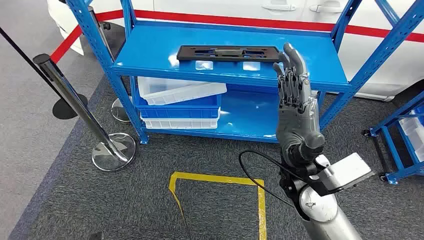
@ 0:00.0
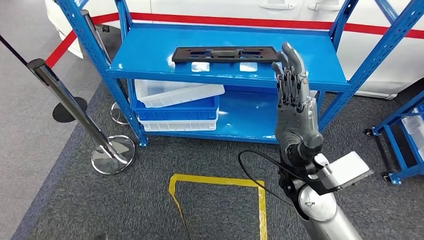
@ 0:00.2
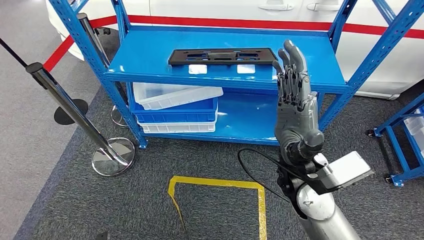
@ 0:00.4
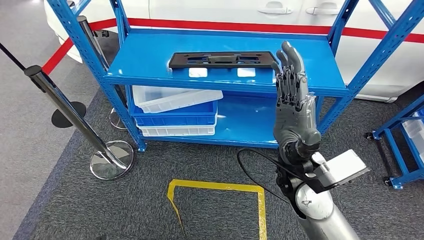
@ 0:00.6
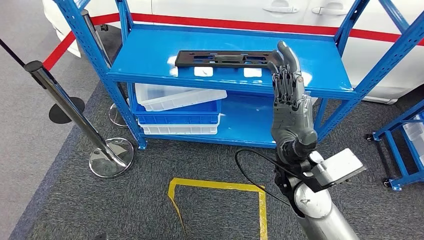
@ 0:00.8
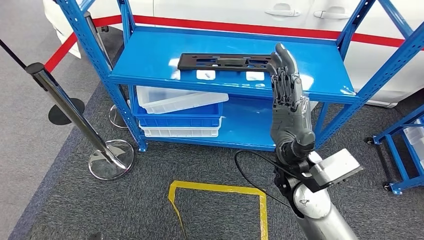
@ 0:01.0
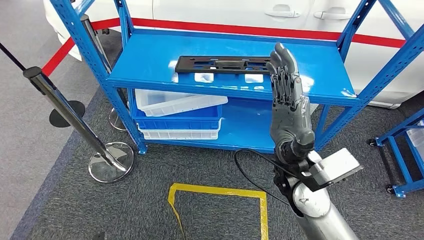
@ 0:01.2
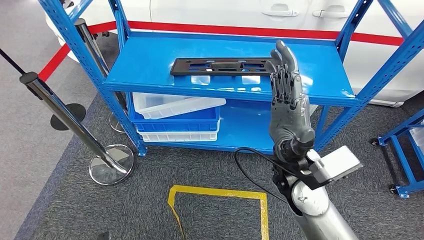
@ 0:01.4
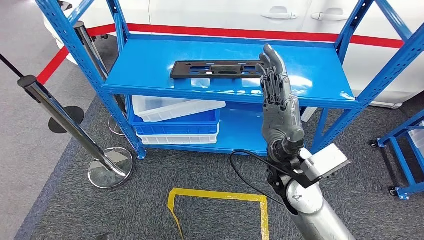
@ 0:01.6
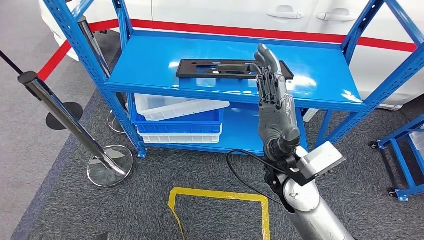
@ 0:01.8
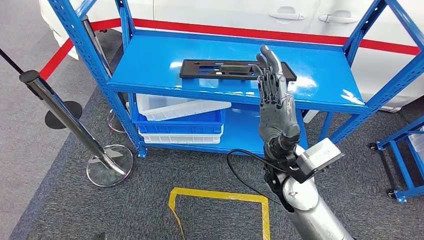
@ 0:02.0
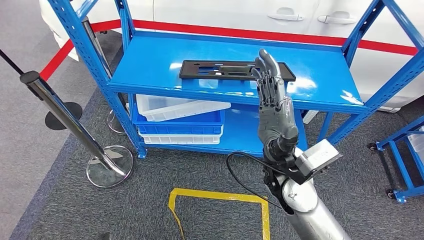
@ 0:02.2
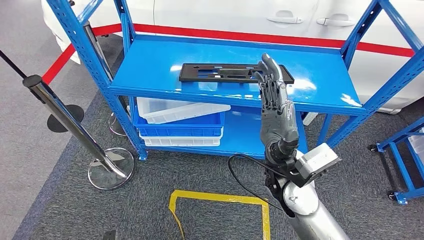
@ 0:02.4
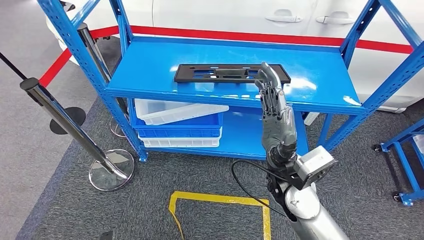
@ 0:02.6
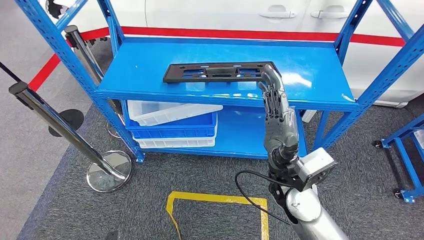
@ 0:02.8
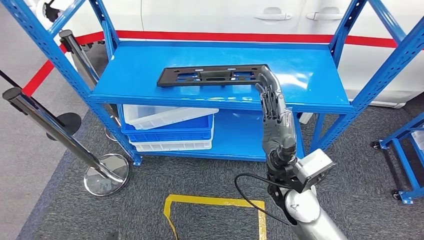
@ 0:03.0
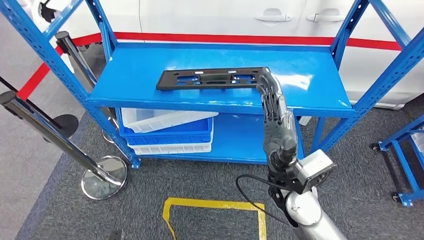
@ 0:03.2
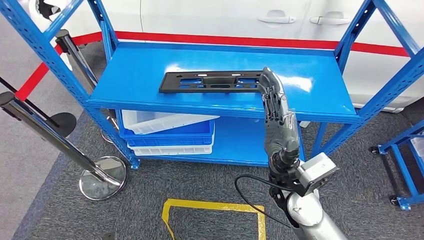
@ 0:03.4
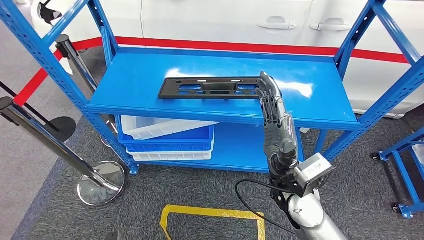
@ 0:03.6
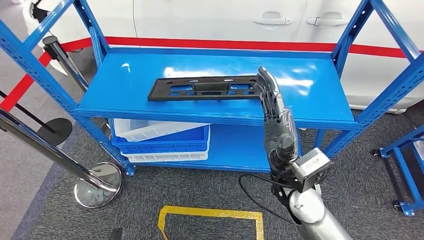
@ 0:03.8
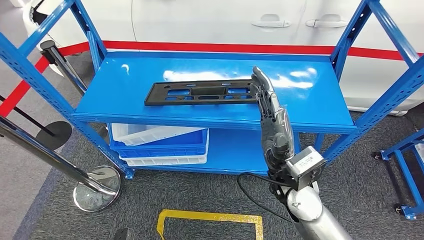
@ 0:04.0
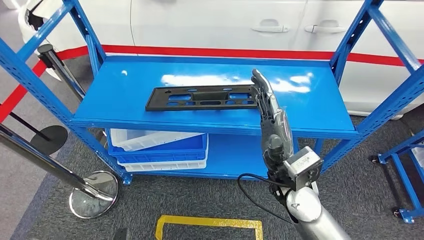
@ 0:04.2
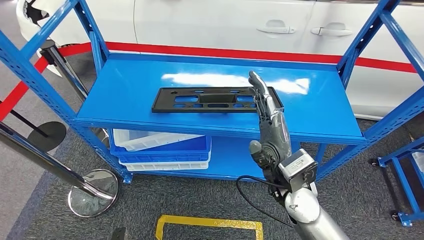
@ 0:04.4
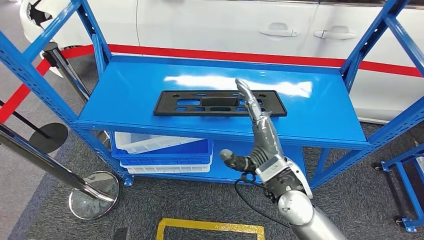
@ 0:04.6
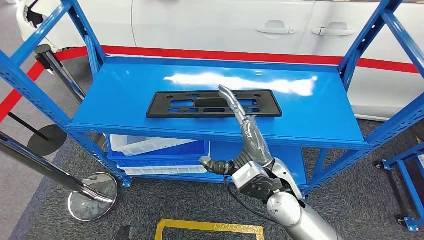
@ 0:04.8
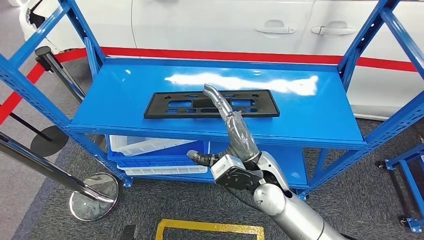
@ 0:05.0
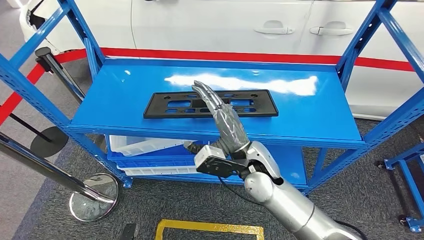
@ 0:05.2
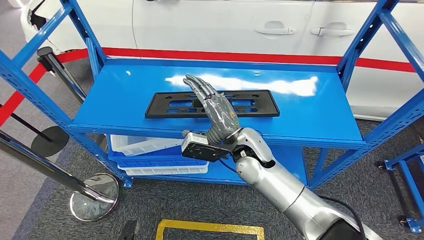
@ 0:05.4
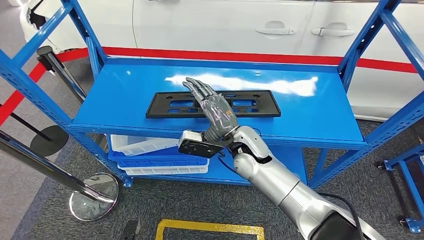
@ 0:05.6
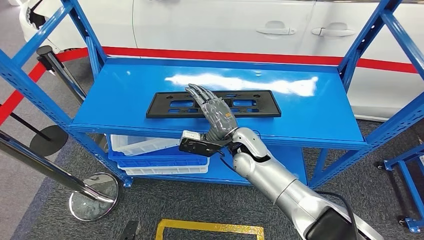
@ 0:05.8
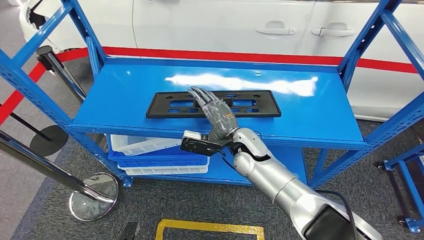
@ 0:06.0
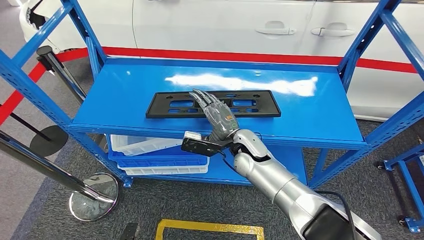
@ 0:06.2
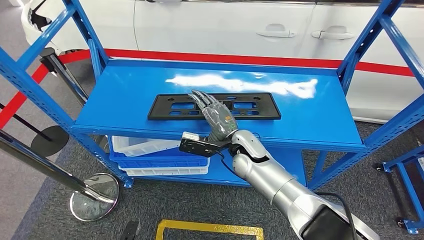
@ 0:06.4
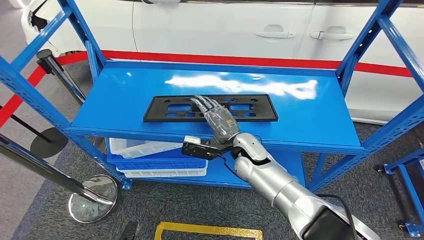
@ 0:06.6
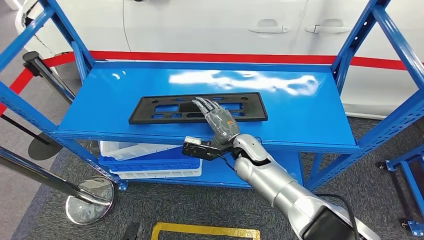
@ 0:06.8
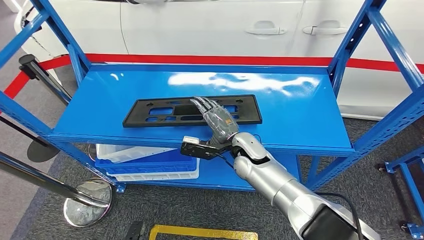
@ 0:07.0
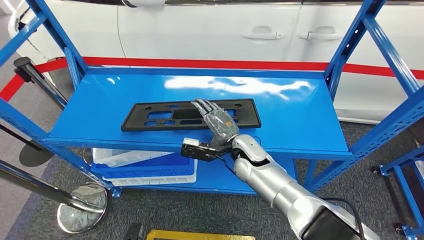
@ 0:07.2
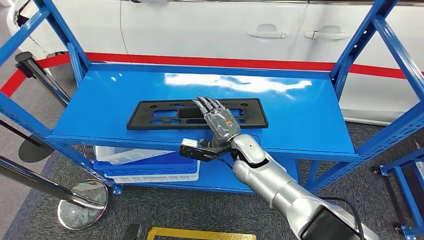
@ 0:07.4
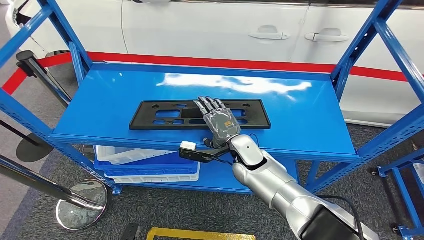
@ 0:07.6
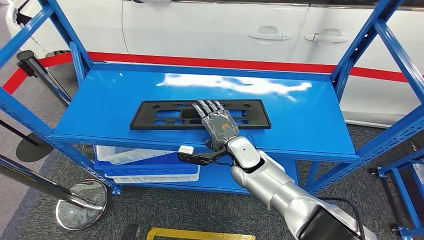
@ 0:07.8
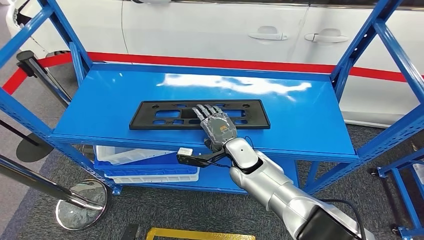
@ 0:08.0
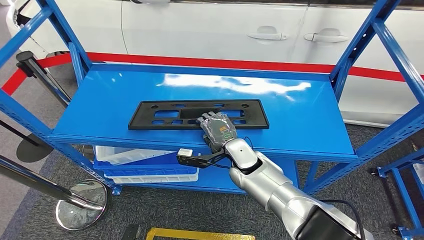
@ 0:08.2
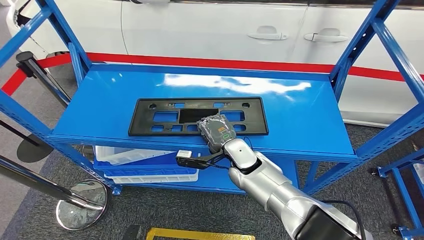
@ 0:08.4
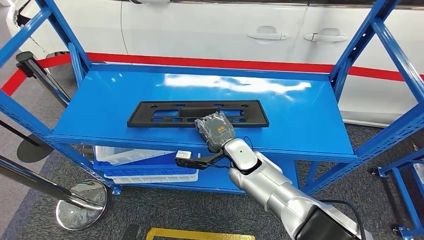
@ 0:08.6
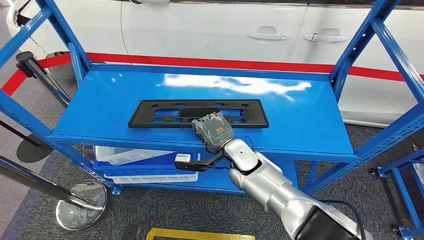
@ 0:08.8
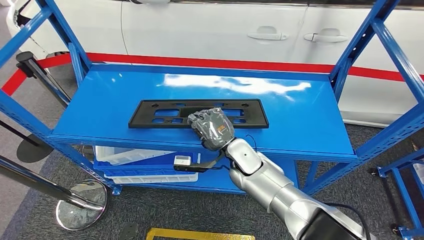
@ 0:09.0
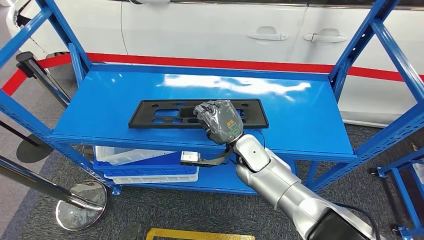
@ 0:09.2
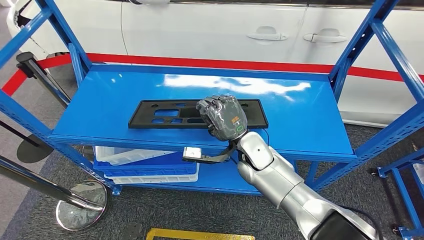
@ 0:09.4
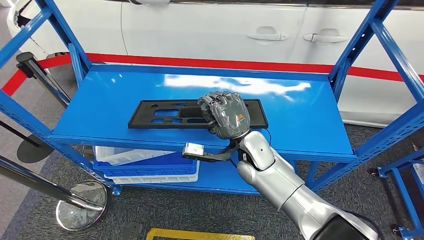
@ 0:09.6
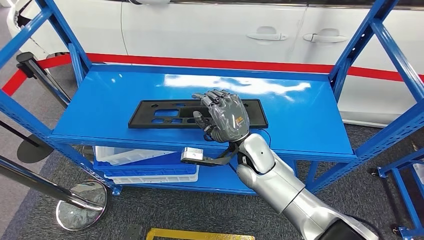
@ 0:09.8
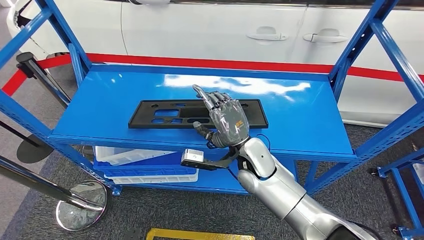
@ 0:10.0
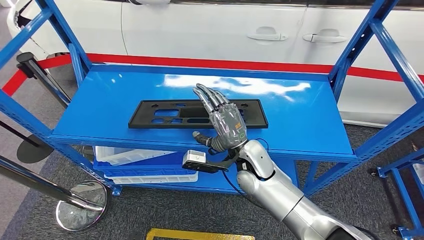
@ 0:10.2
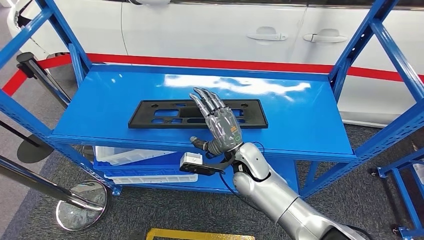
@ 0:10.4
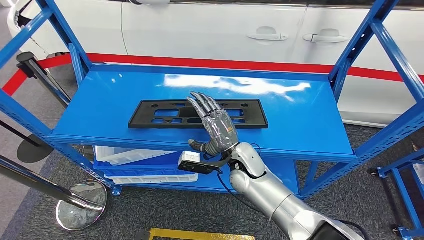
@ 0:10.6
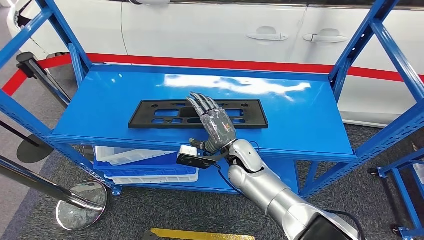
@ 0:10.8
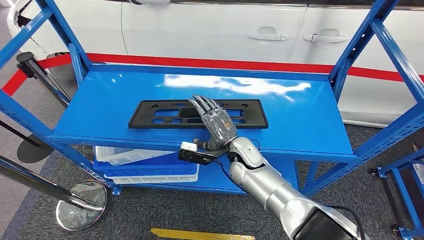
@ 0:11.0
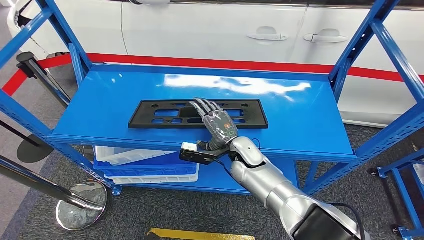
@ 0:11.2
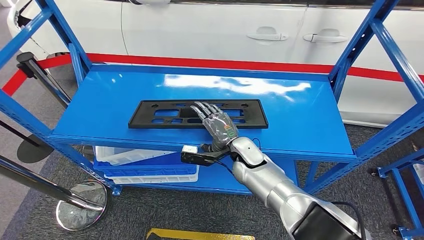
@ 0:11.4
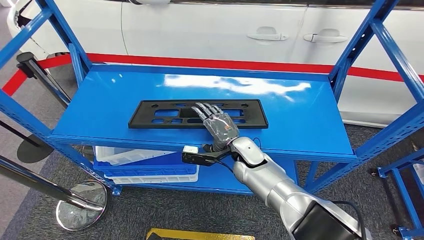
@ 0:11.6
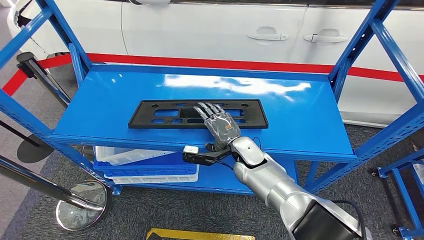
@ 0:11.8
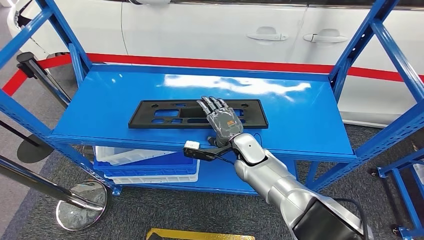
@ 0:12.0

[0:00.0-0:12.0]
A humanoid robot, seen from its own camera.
0:07.6 to 0:09.0: The hands stay close to where they were, moving slightly.
0:10.4 to 0:12.0: The right hand moves roughly 5 cm.

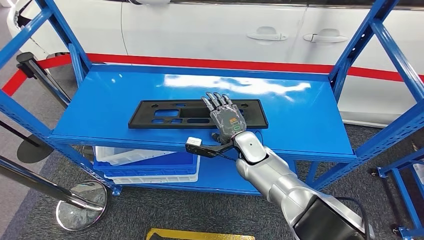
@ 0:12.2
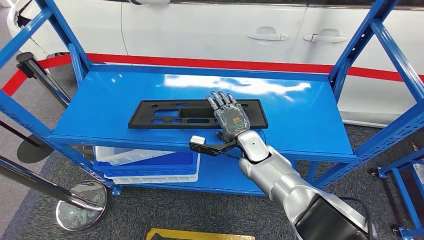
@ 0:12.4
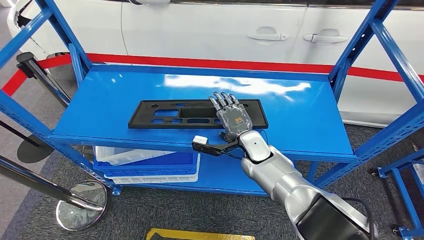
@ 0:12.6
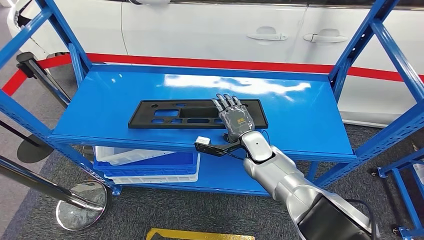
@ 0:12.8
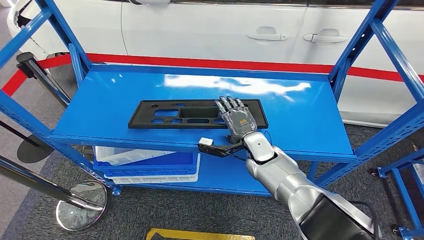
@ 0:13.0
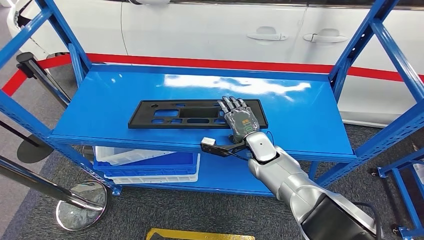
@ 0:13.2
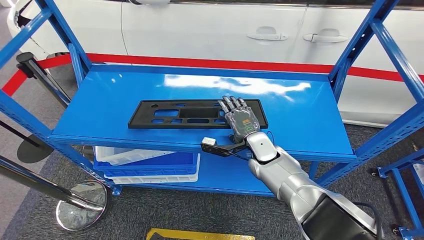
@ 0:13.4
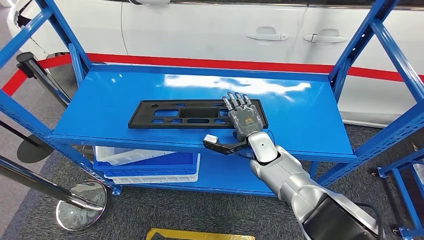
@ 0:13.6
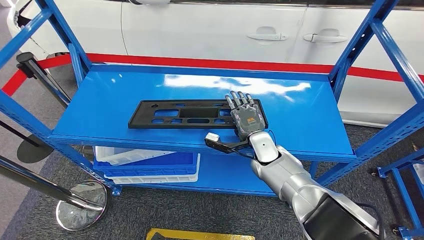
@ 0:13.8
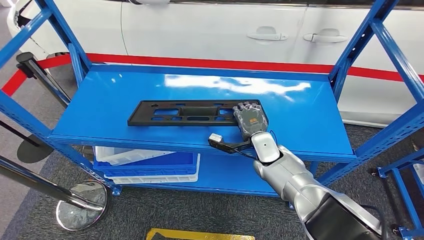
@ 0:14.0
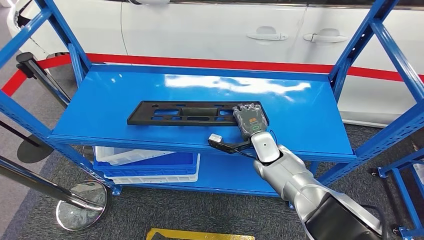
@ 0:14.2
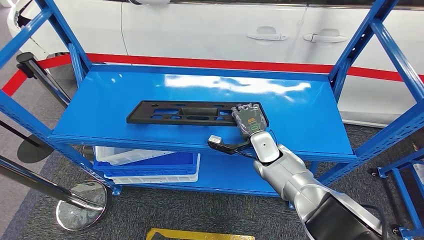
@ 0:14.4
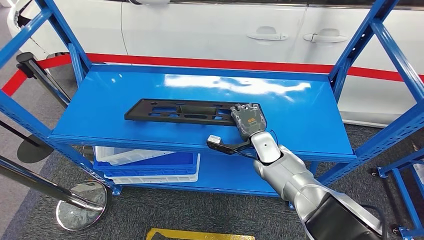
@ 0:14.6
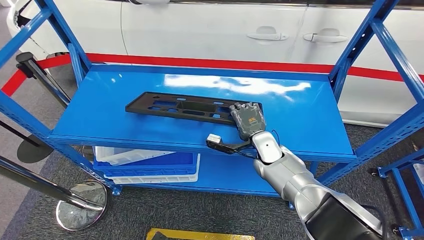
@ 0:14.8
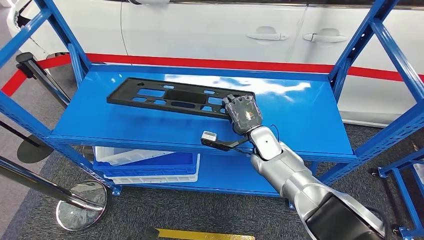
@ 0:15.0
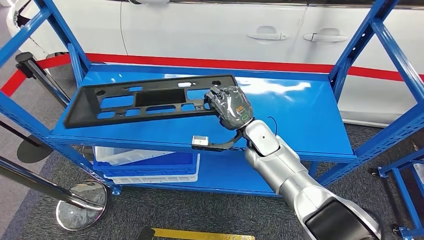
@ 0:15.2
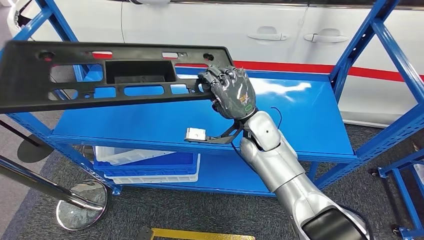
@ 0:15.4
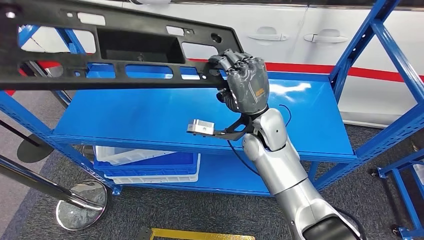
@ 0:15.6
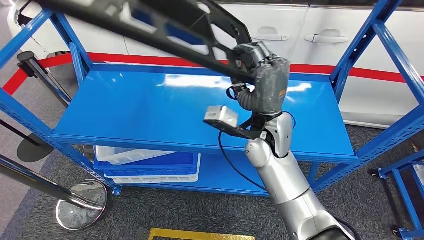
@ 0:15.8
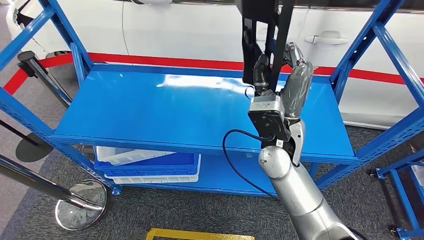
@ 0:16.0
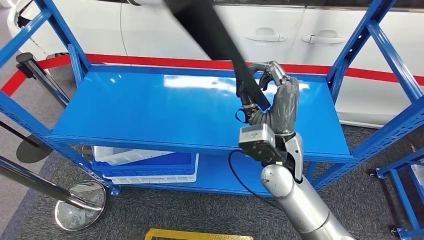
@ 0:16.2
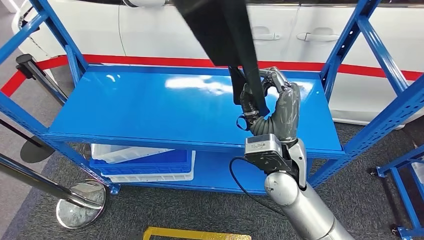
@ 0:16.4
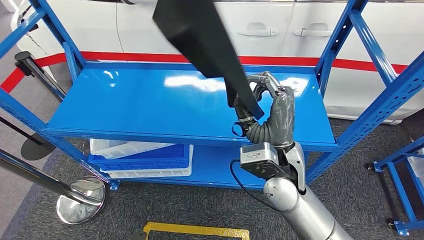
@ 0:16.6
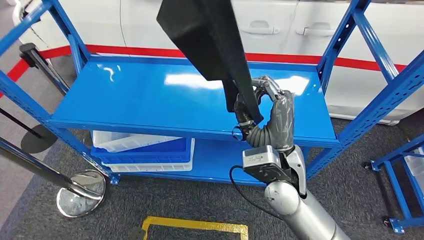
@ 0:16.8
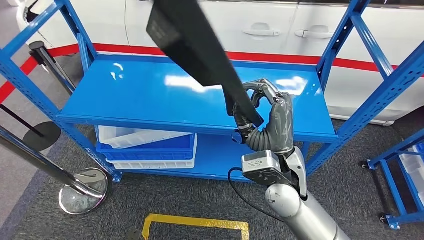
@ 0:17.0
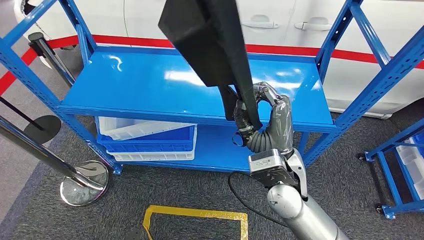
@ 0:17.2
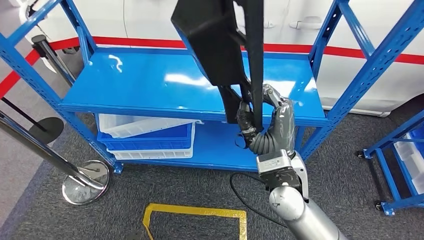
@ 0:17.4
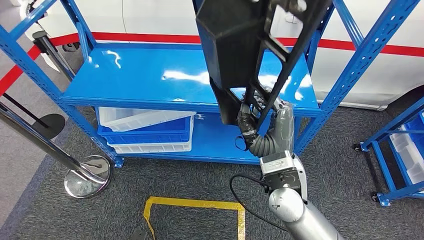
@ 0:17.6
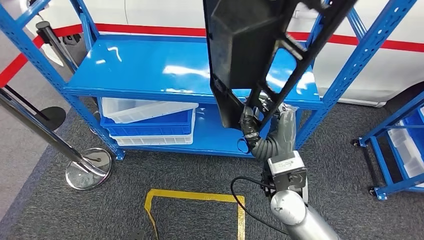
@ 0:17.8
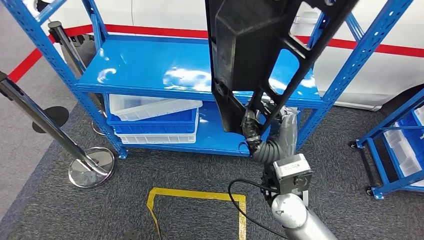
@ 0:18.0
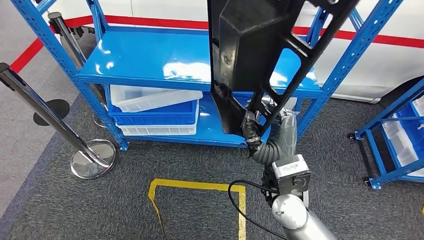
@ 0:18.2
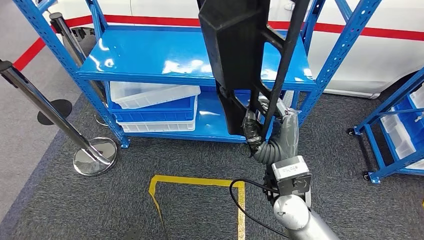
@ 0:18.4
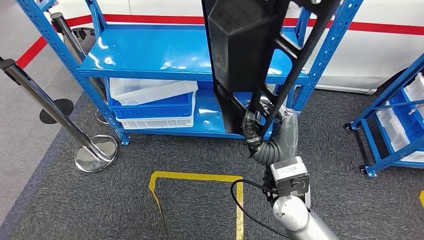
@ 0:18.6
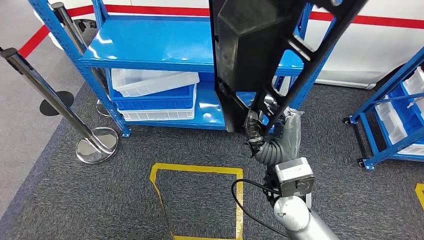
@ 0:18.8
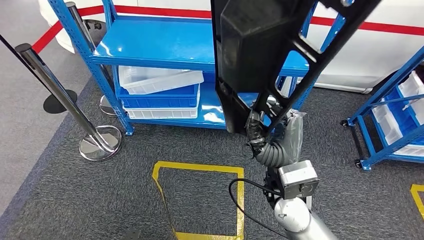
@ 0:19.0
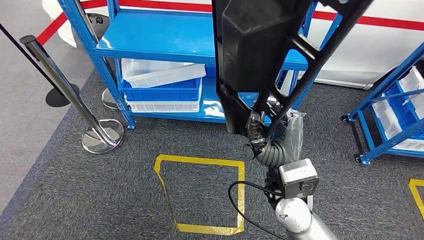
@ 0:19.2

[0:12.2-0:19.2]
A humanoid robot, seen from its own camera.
Step, 0:12.2 to 0:18.8: Pick up the large material from the shelf.
0:12.2 to 0:13.6: There are only small adjustments of the hands.
0:13.6 to 0:15.0: The hands make only small movements.
